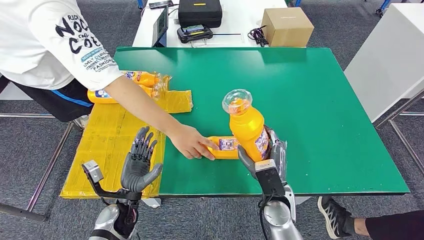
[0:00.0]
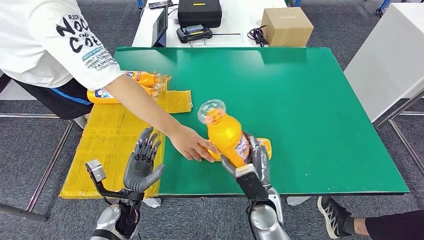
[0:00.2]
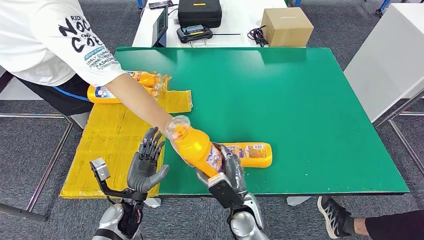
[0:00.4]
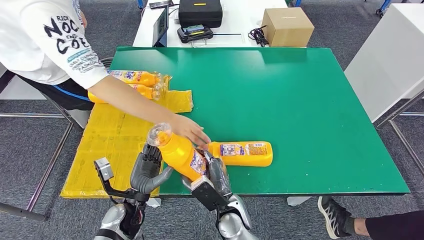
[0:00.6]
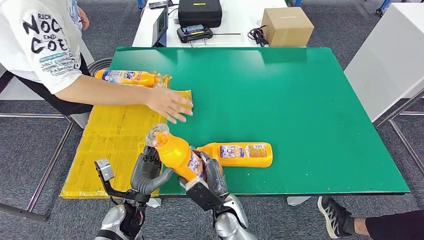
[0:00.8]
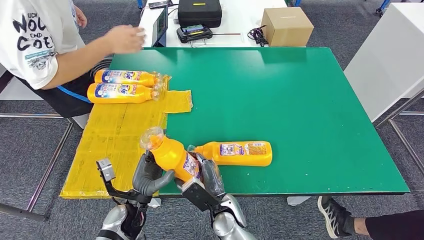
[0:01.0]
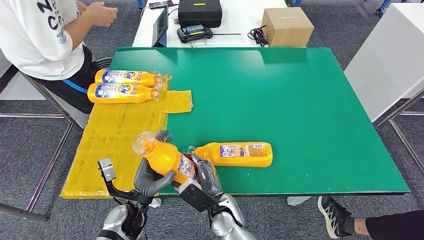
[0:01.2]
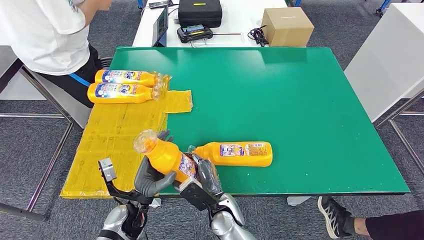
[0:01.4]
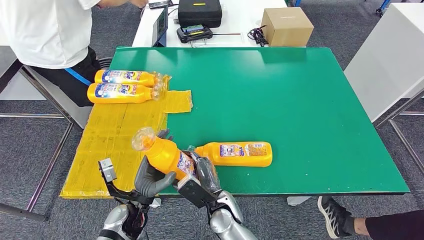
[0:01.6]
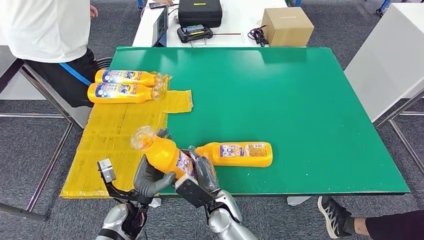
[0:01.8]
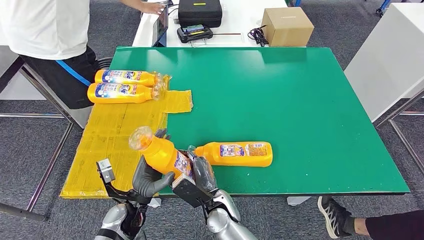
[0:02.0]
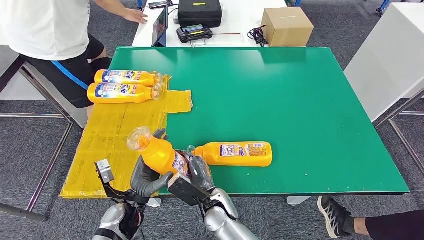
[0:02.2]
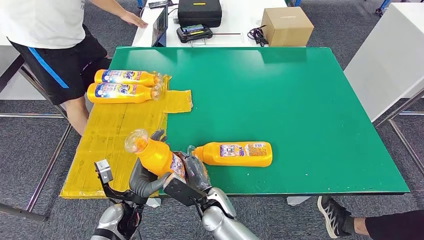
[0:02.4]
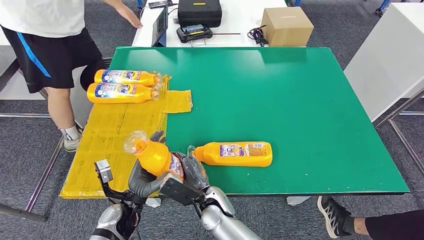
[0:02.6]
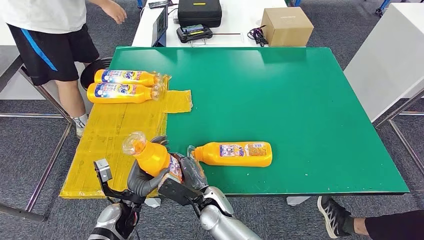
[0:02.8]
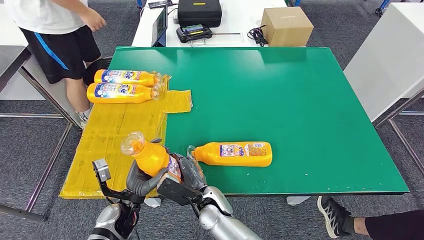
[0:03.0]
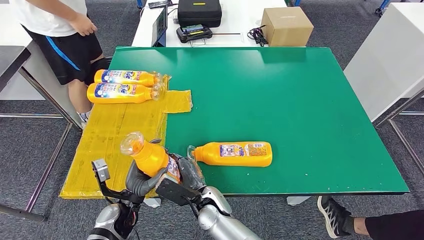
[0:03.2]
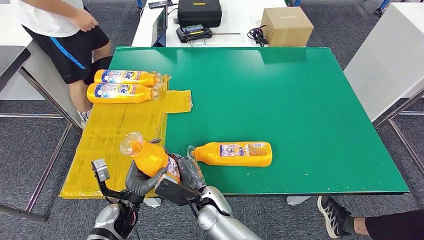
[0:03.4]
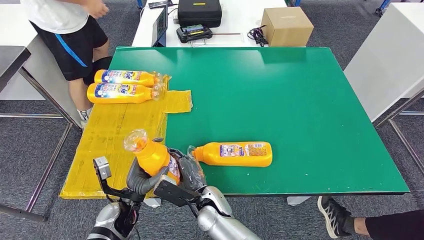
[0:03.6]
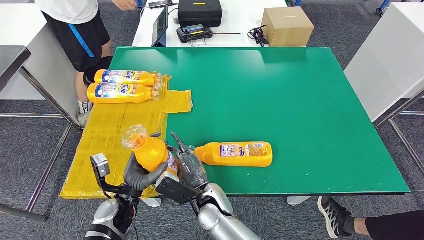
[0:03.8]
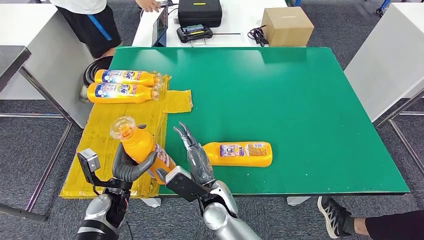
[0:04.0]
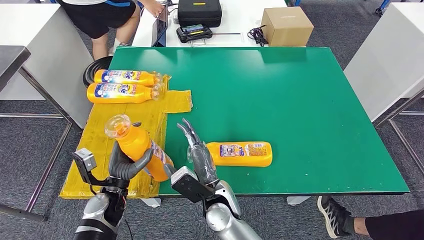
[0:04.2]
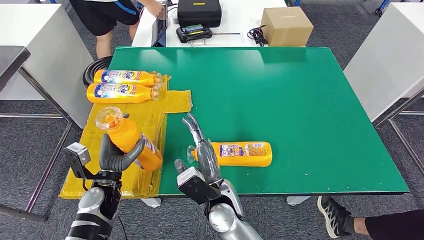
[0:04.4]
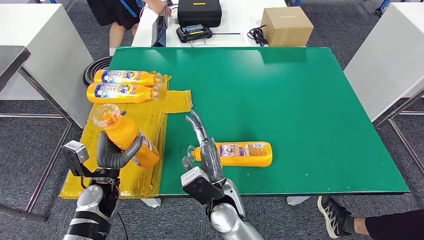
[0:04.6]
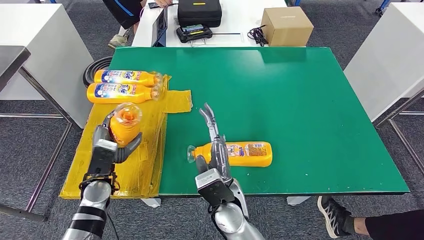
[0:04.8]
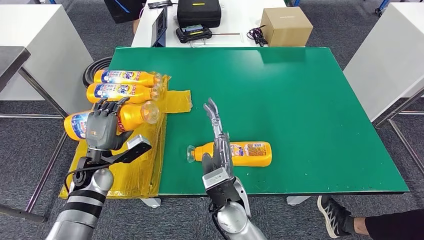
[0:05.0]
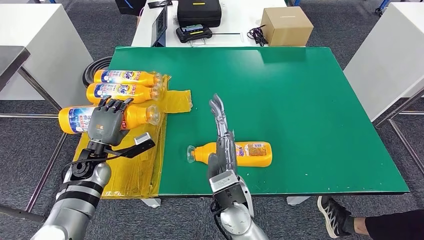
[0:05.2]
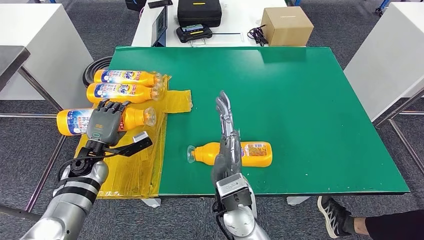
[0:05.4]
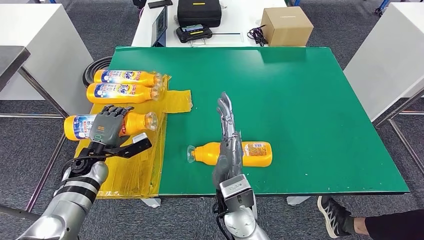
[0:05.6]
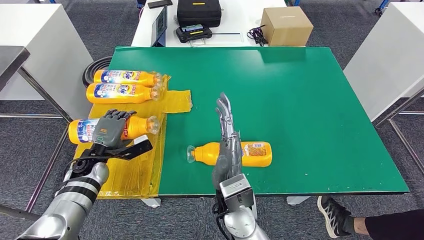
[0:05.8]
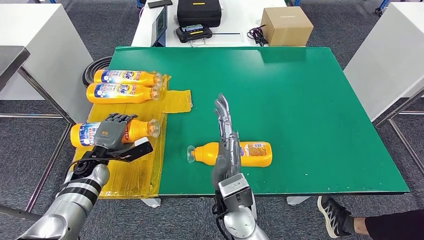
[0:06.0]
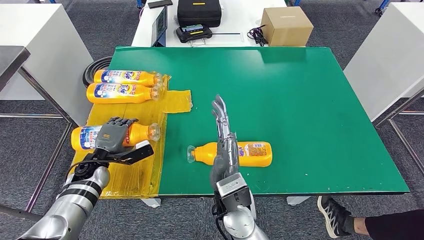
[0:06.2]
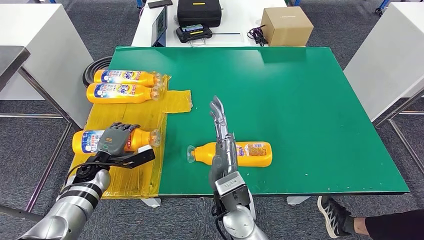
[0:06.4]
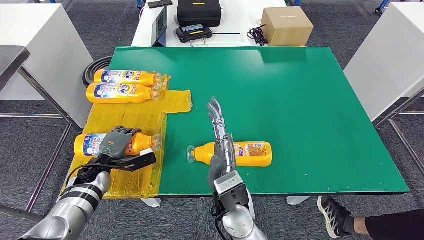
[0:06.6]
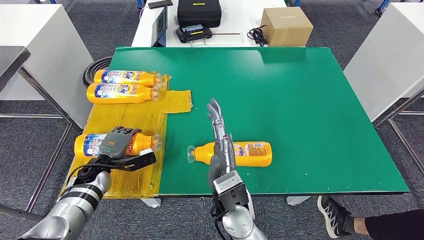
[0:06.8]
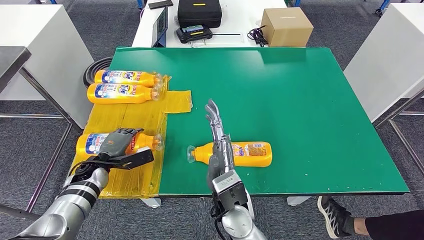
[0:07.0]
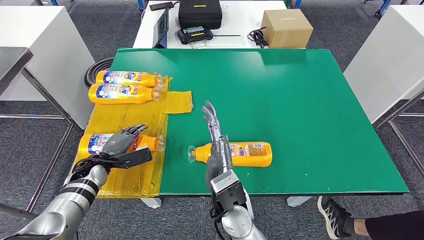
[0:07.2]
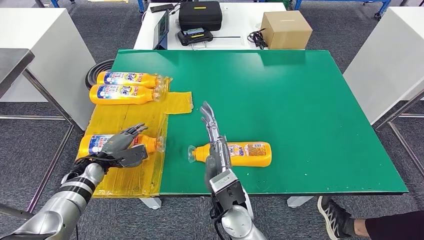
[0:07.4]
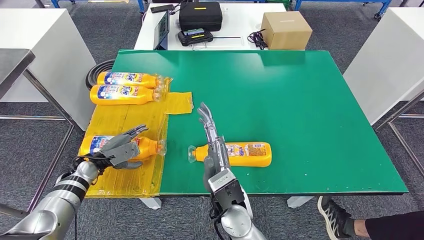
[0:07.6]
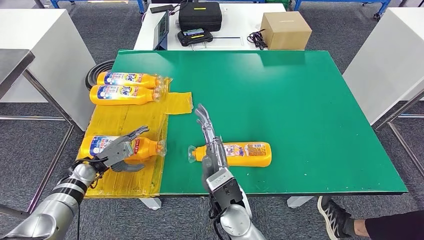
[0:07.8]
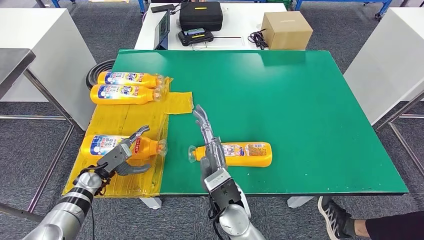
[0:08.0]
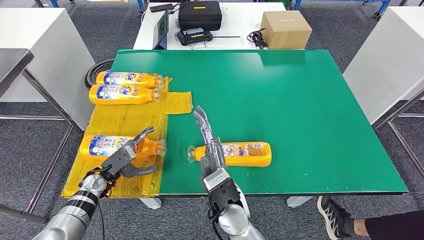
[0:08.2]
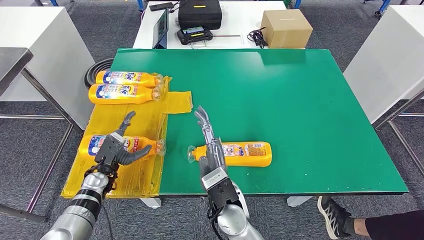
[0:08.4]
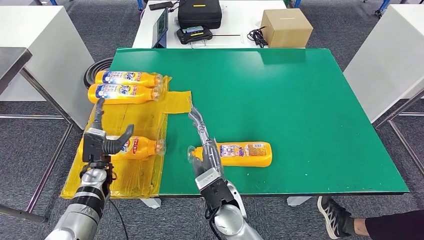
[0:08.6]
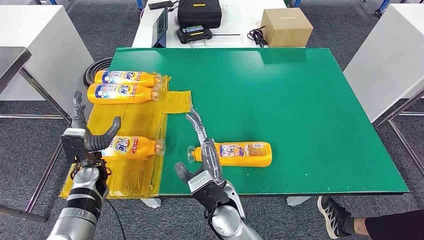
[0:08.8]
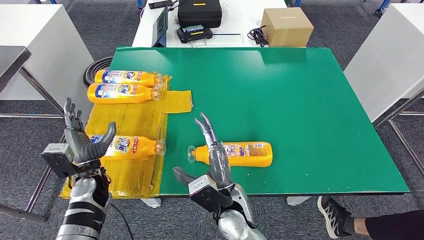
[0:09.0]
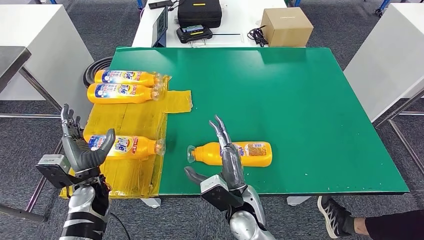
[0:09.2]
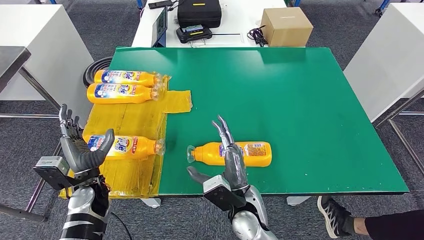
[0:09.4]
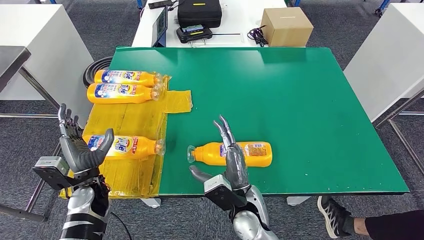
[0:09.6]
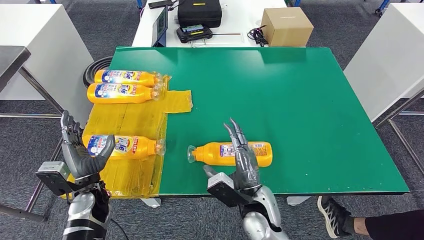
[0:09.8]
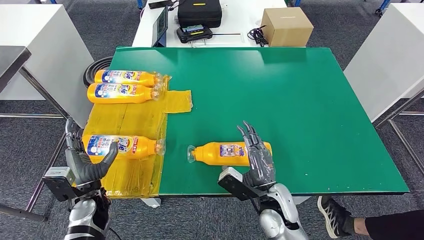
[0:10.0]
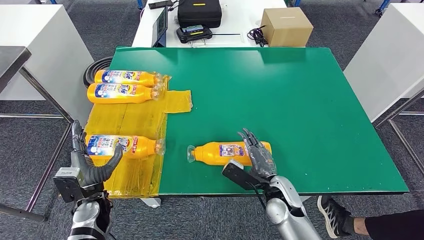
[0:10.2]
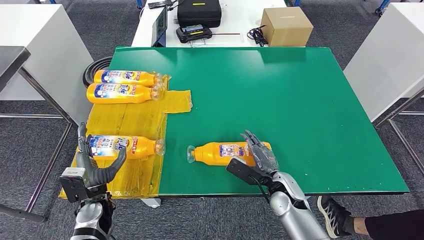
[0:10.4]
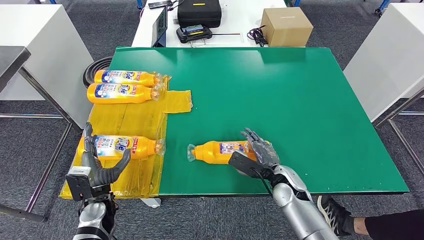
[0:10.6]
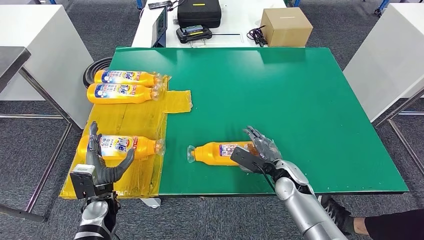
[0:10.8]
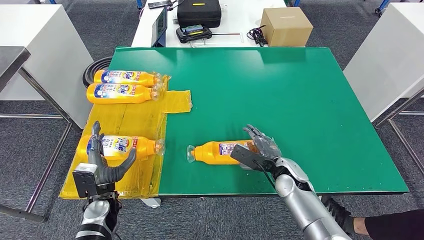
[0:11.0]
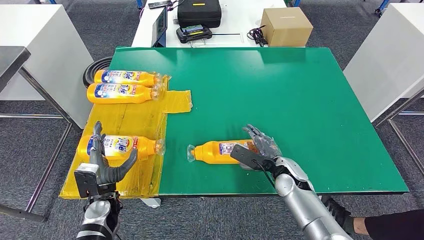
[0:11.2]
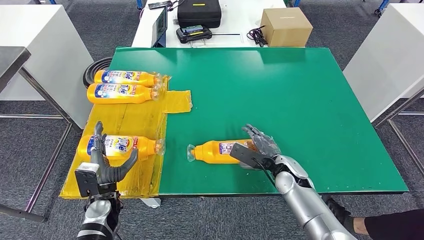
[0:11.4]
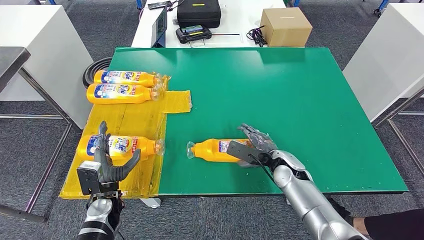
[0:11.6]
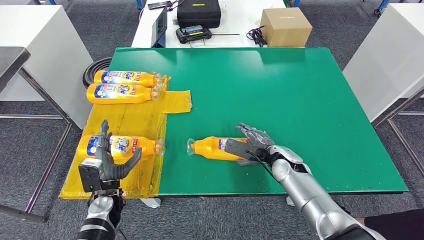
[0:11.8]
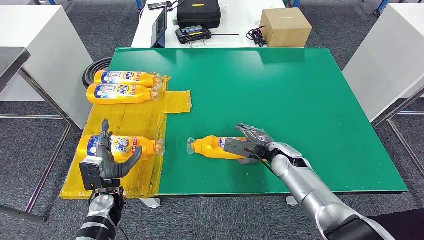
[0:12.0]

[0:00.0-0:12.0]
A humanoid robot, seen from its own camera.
Step, 0:00.6 to 0:06.4: Flip the fast-moving consumer goods bottle to the front side.
0:01.6 to 0:03.0: The hands move only a little.
0:03.0 to 0:04.4: The right hand moves upward, roughly 5 cm; the left hand moves to the left, some 5 cm.
0:04.4 to 0:06.0: The left hand is displaced forward and to the left by approximately 10 cm, while the right hand travels upward by roughly 5 cm.
0:09.0 to 0:10.4: The left hand travels backward by about 5 cm. Meanwhile the right hand is displaced to the right and downward by roughly 15 cm.
0:10.4 to 0:12.0: The right hand is displaced forward by approximately 10 cm.

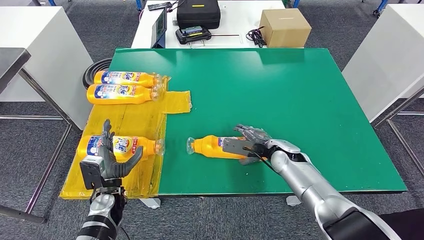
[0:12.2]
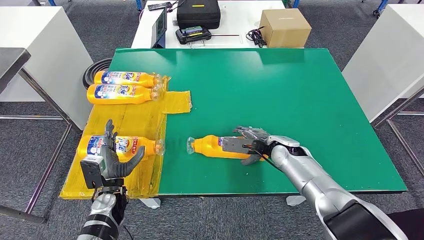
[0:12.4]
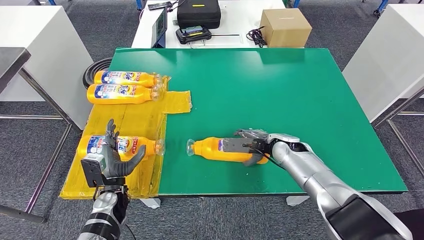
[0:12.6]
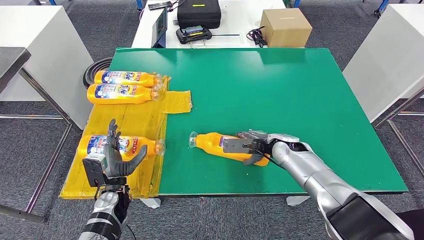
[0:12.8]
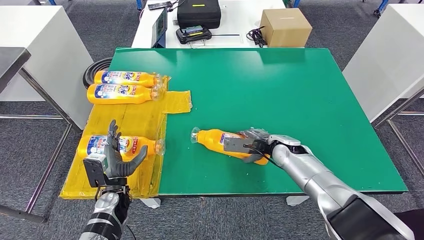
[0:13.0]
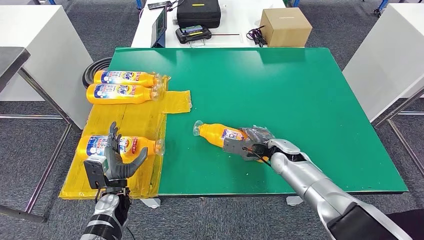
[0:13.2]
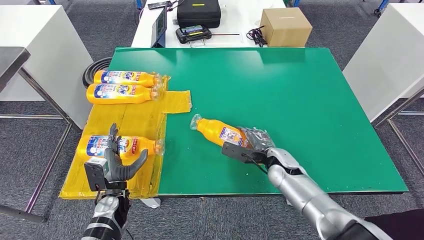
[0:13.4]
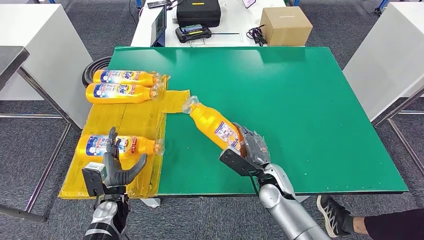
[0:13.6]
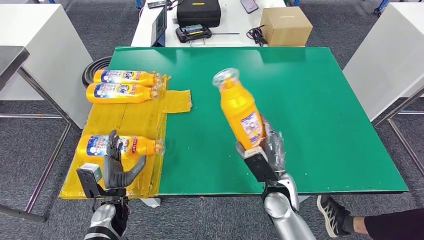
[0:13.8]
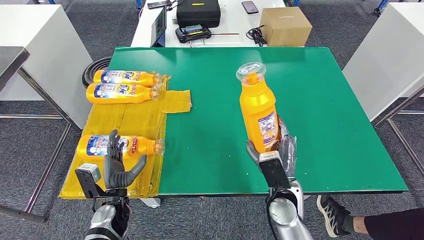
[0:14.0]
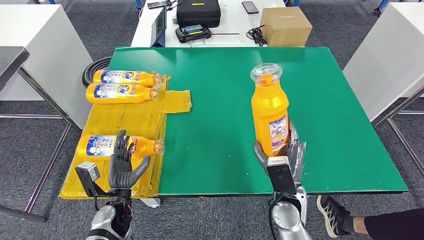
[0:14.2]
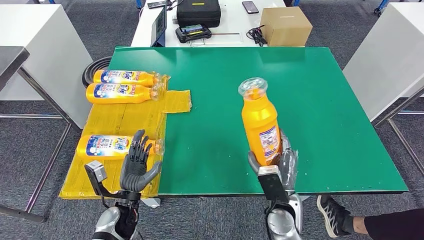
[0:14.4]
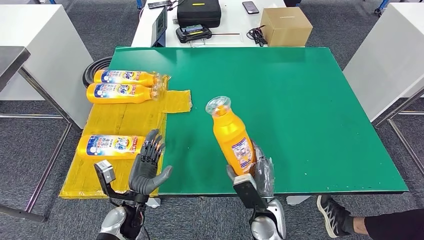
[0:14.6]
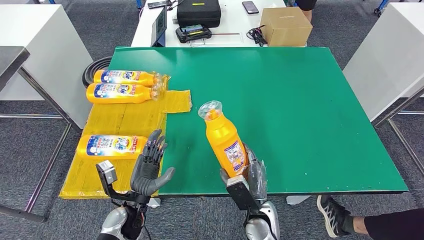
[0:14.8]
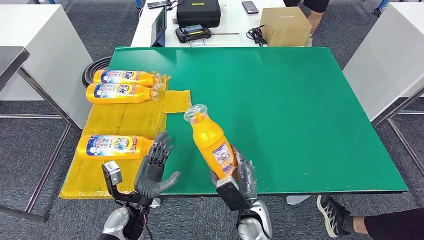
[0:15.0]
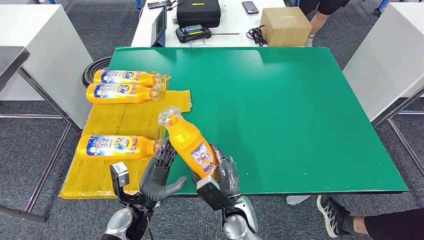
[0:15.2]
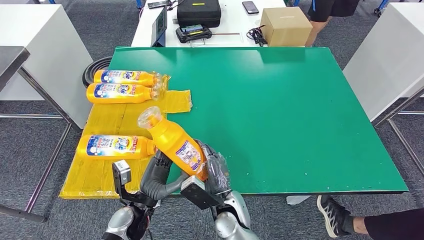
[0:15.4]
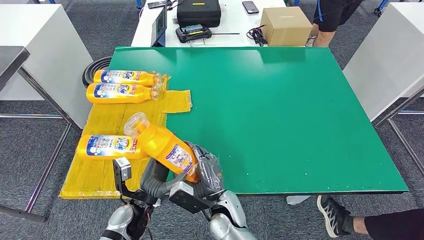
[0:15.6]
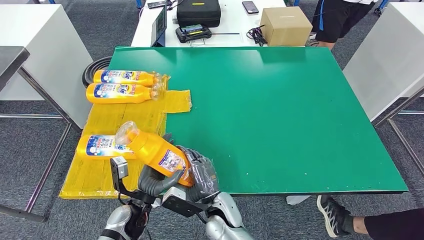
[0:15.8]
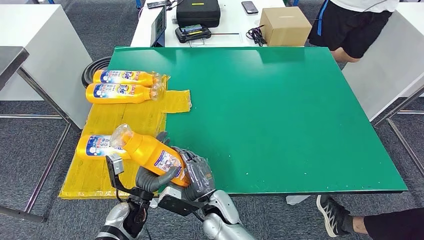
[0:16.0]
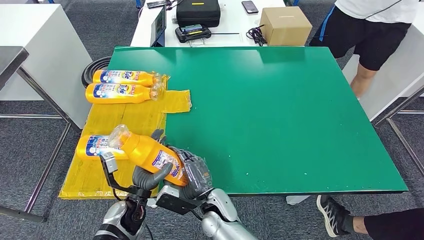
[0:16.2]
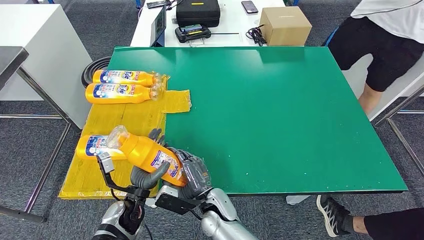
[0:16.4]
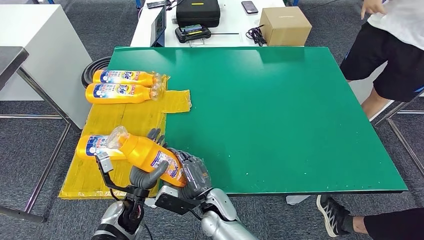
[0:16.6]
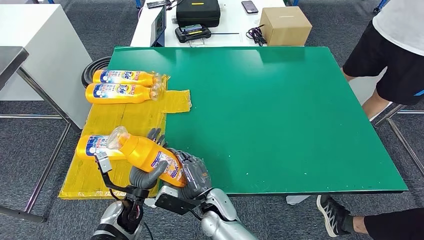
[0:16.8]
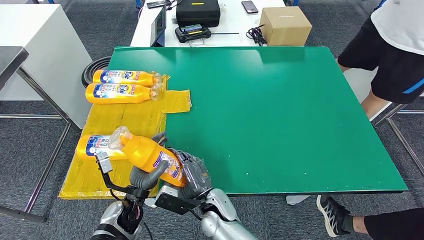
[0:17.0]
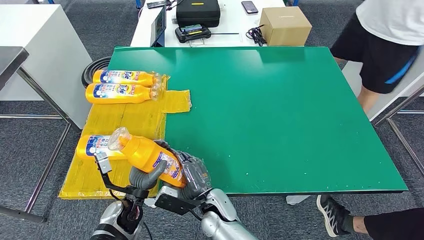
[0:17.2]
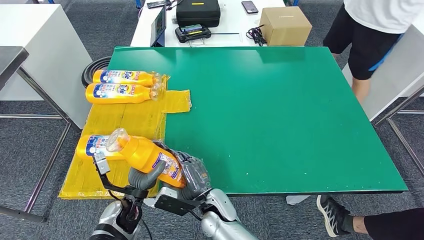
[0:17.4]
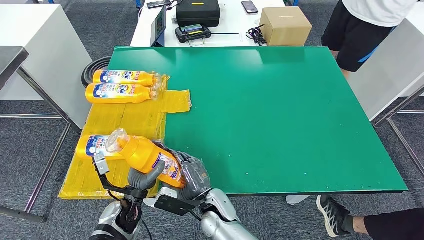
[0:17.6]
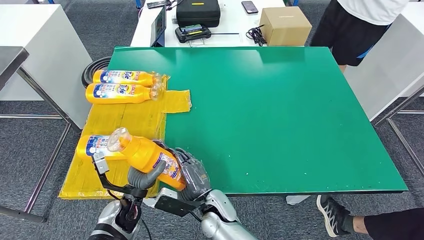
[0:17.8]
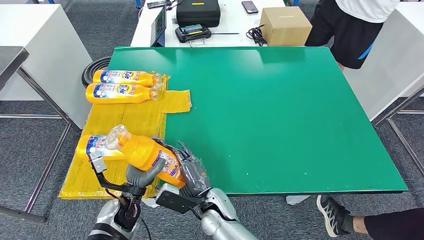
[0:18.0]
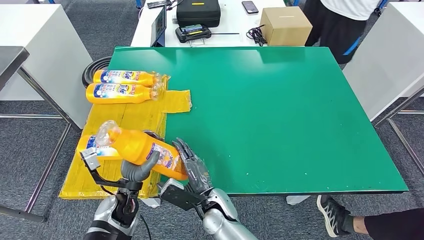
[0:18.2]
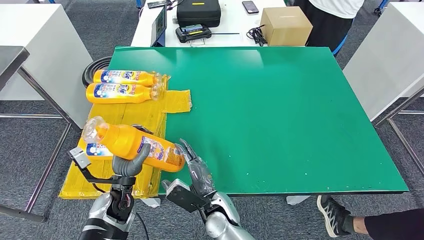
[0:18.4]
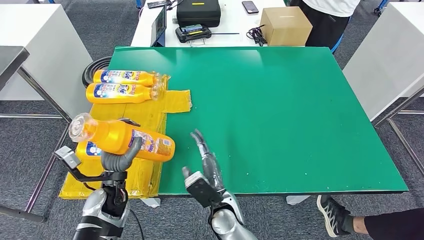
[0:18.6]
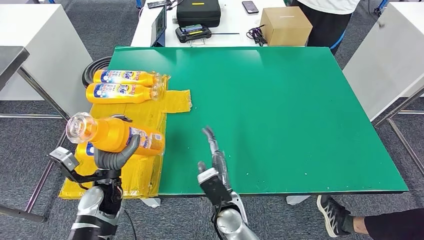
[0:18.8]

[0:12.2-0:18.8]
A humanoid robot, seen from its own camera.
Step, 0:12.2 to 0:15.8: Pick up the fast-moving consumer goods bottle from the table.
0:12.2 to 0:13.8: The right hand moves backward, approximately 10 cm.
0:13.8 to 0:15.4: The left hand goes about 5 cm to the right. The right hand heads to the left, covering some 10 cm.
0:15.4 to 0:17.2: The hands make only small movements.
